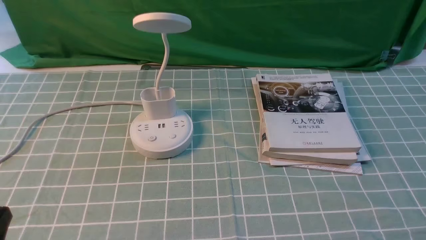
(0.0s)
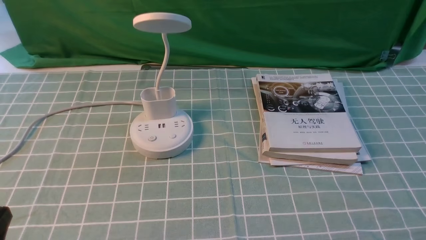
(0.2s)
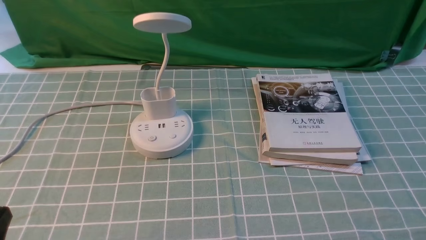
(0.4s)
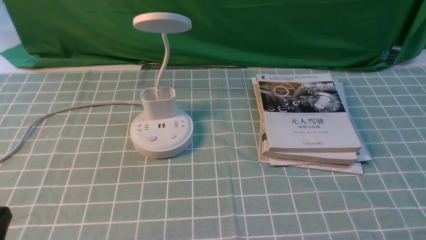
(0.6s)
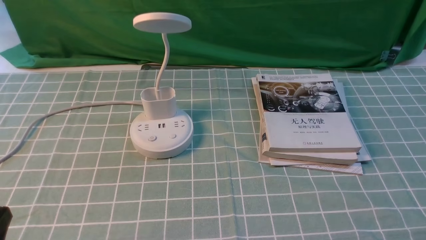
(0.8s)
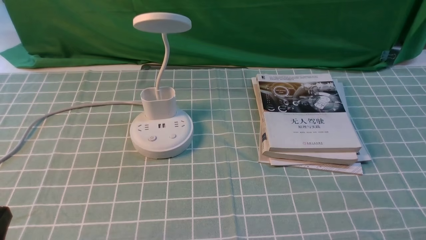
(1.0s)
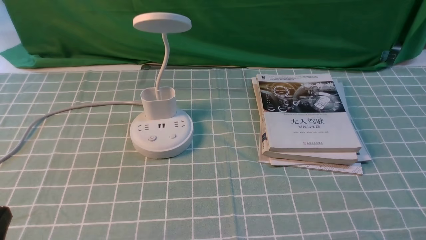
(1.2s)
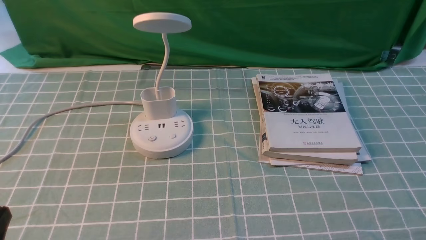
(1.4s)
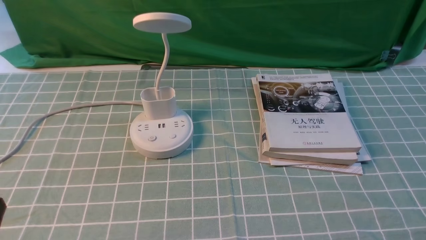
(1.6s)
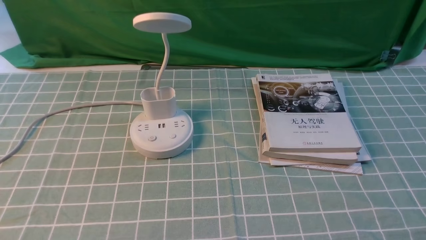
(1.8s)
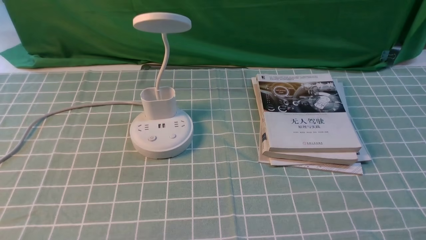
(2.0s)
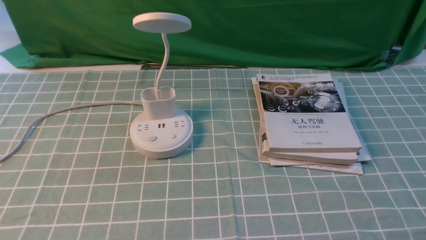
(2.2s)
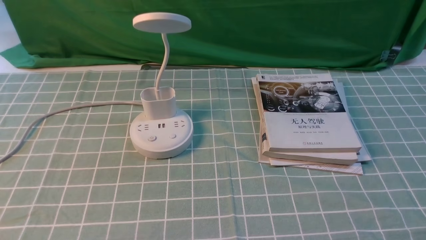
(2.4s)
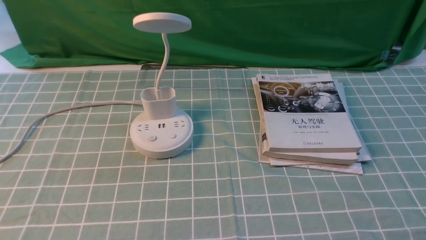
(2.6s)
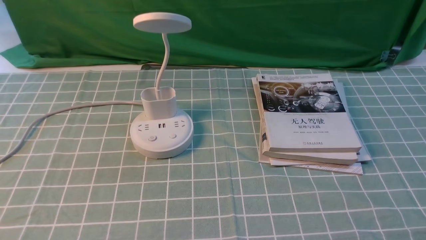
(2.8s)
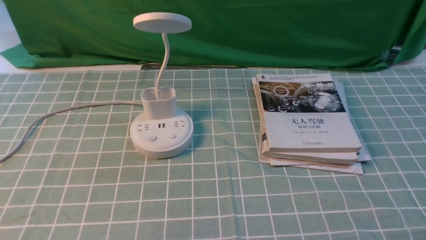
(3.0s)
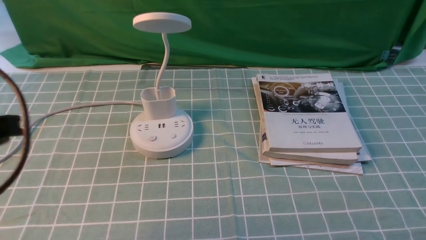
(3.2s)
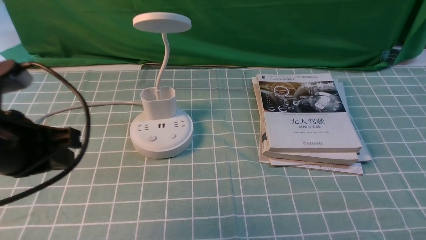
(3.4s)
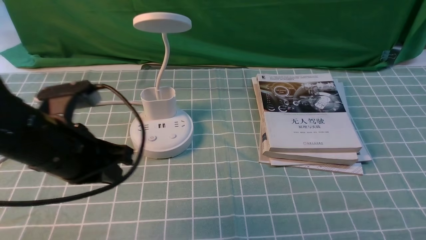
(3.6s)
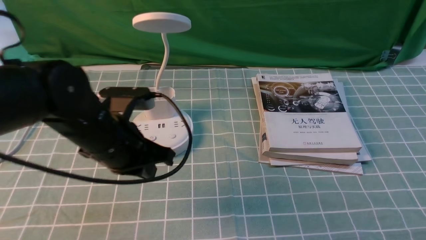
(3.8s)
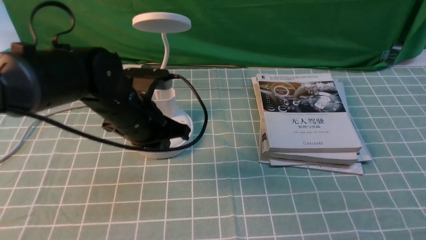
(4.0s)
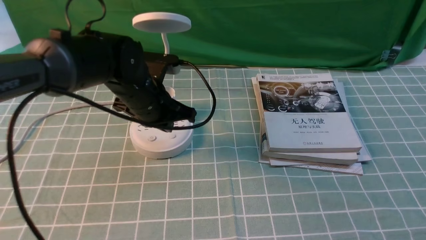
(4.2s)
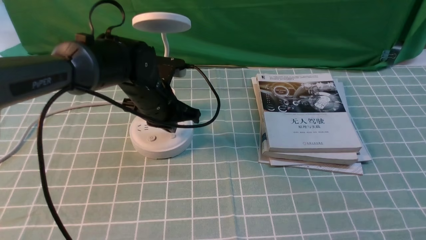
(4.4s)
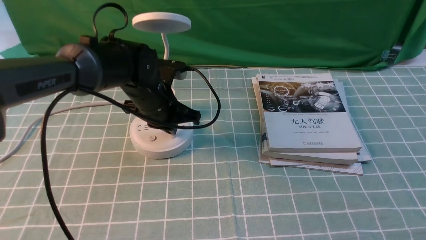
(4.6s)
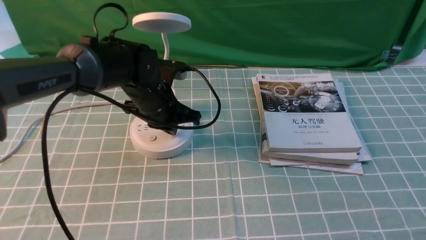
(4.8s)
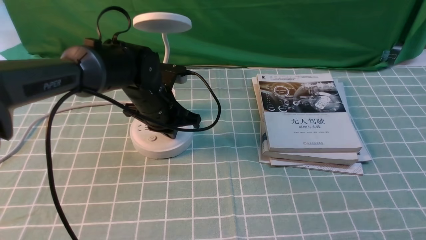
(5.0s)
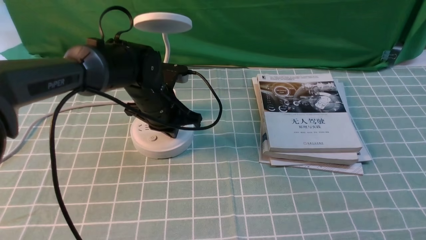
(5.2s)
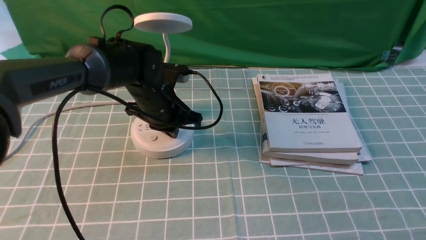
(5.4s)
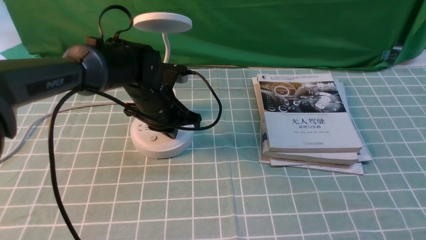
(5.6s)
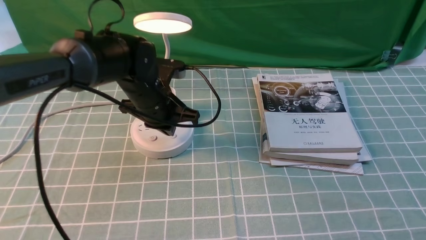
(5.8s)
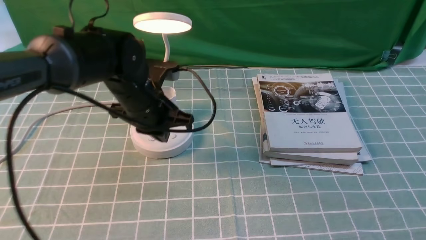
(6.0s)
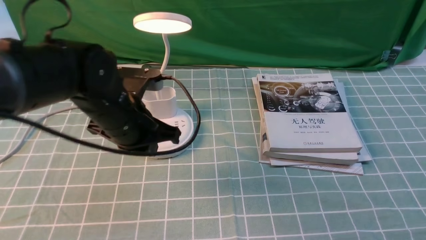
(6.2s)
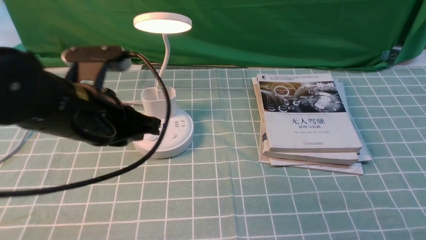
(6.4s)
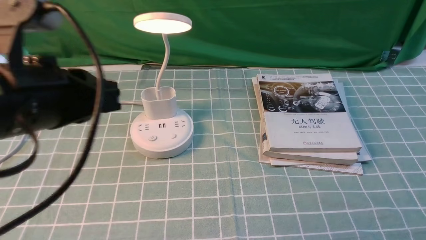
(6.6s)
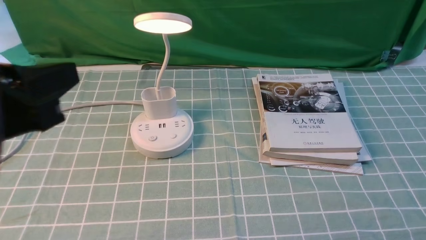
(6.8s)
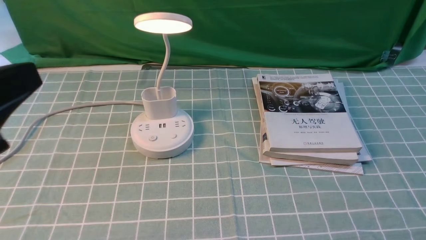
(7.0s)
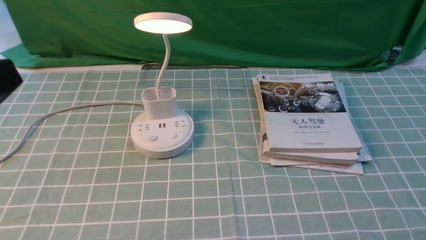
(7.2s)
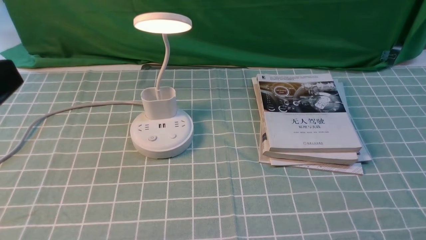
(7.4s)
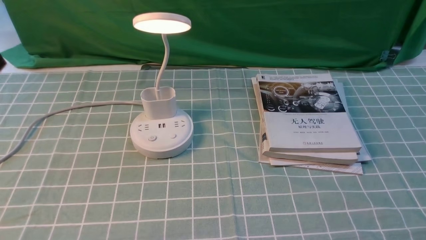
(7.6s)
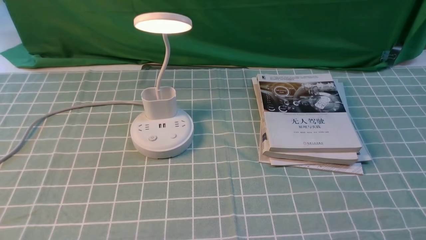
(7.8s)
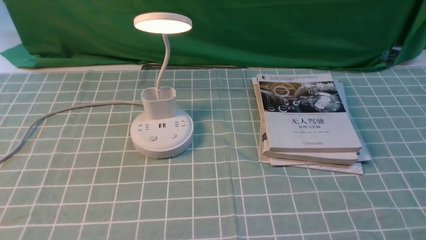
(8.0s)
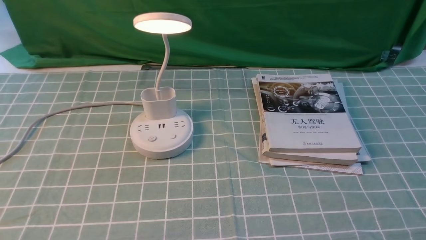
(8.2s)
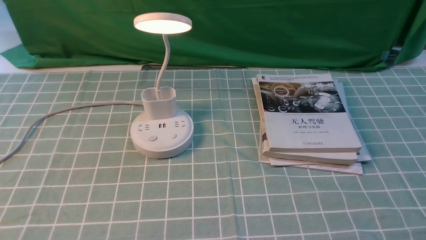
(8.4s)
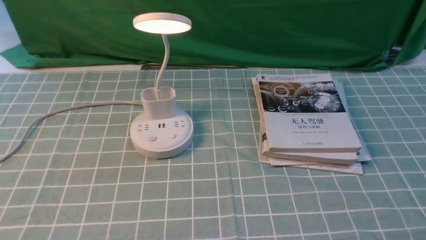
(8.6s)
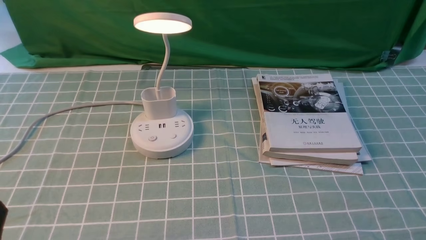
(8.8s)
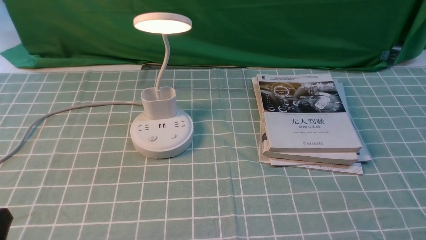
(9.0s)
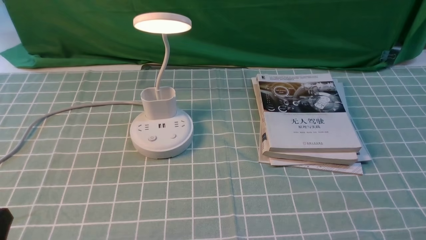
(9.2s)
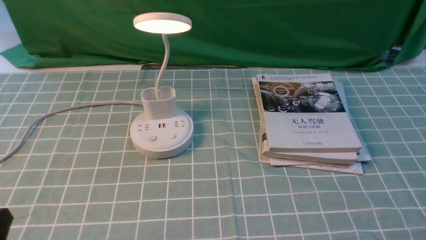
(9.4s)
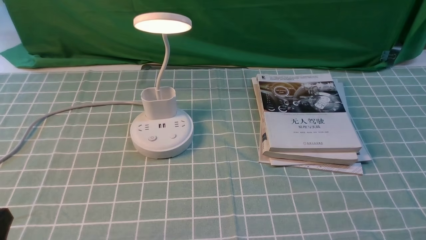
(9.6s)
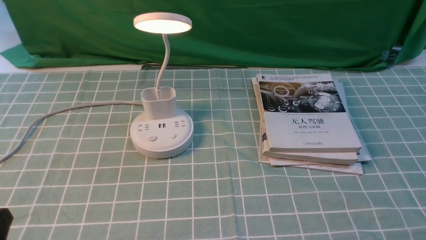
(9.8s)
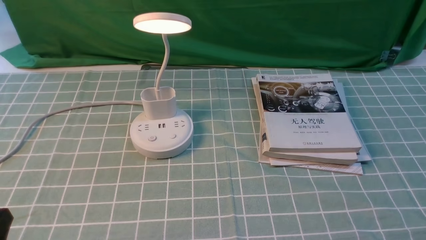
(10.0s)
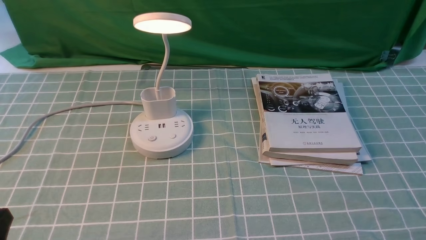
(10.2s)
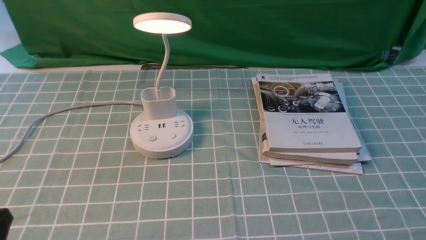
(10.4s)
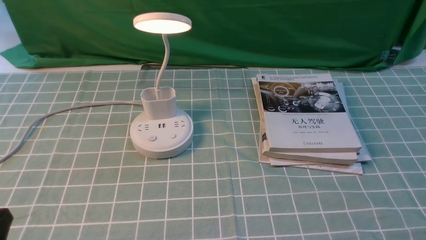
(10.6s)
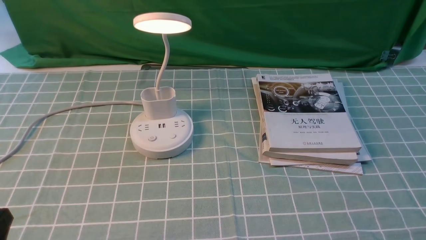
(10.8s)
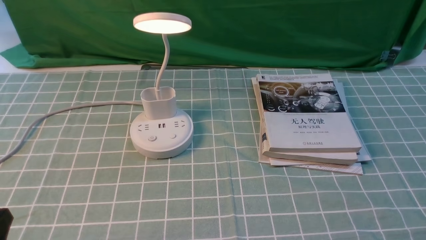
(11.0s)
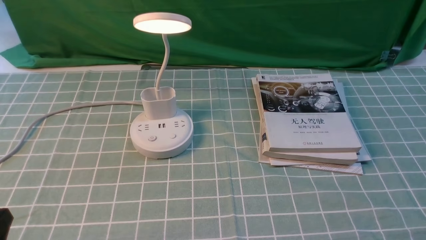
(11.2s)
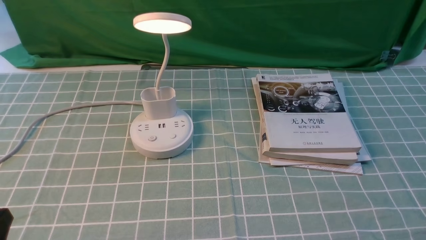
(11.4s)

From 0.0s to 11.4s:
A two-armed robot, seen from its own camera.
Step, from 0.0s to 5.8s: use the left arm to press the button switch on the lamp holder.
From 0.0s to 1.4s: Both grippers stay put.
From 2.8s to 4.2s: The left gripper shifts some 40 cm forward, to the right and downward, and closes up.
From 4.2s to 5.6s: The grippers make only small movements.
From 5.6s to 7.2s: The left gripper is displaced backward, upward and to the left by about 40 cm.
From 7.2s to 8.6s: The left gripper travels downward by approximately 15 cm.
From 10.0s to 11.4s: Neither gripper changes place.

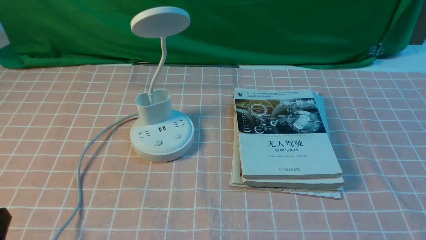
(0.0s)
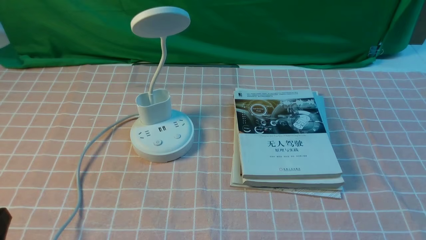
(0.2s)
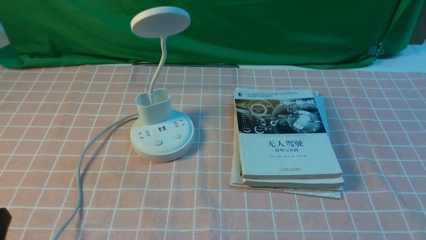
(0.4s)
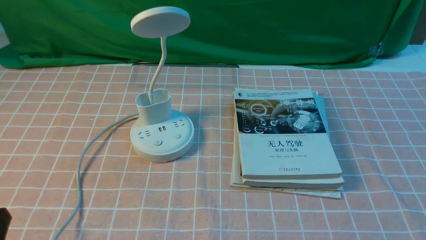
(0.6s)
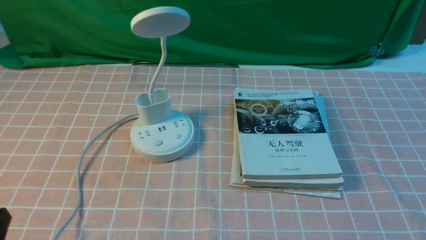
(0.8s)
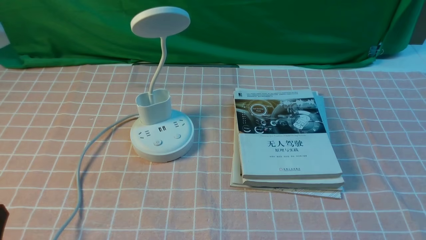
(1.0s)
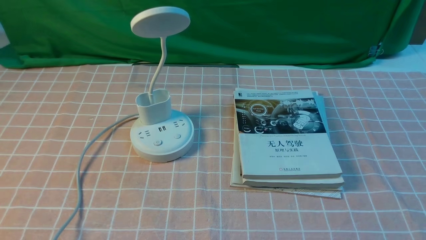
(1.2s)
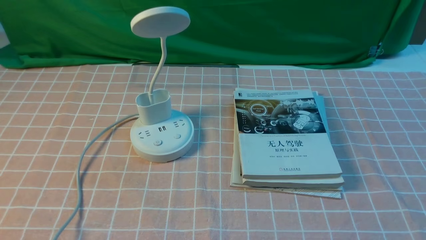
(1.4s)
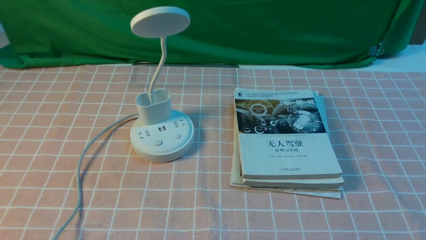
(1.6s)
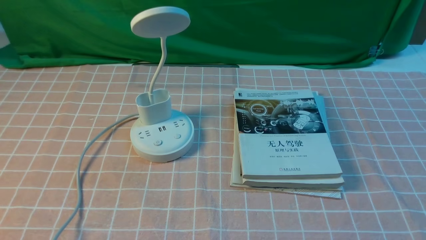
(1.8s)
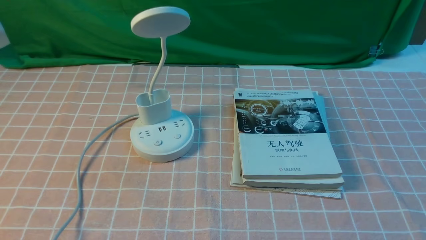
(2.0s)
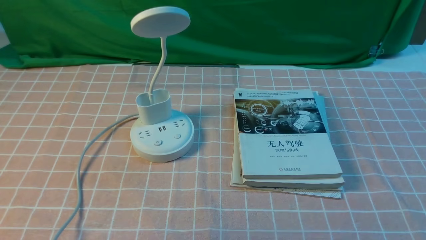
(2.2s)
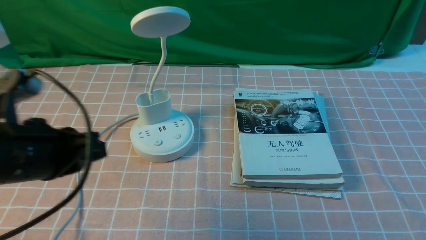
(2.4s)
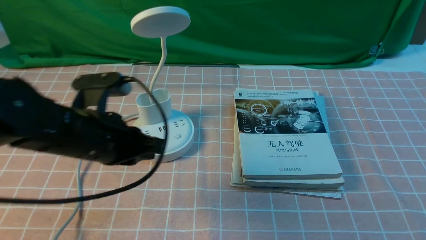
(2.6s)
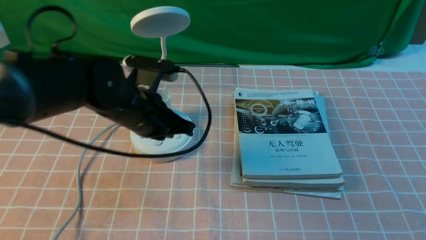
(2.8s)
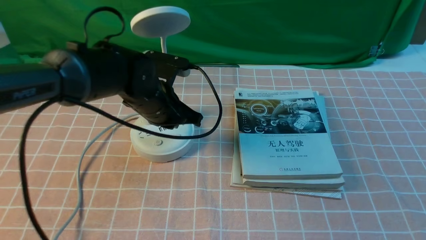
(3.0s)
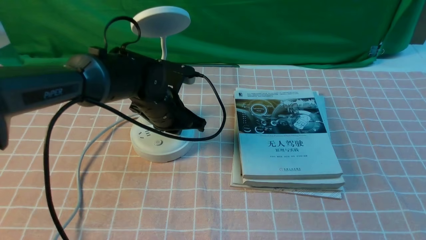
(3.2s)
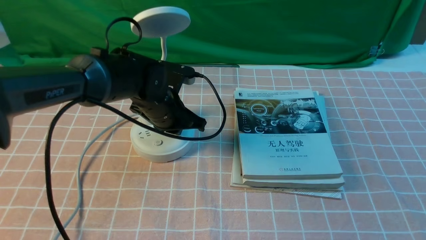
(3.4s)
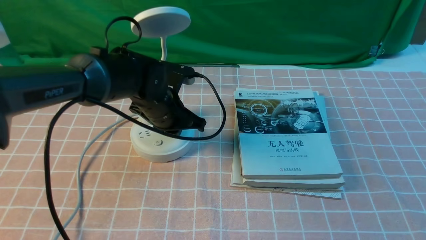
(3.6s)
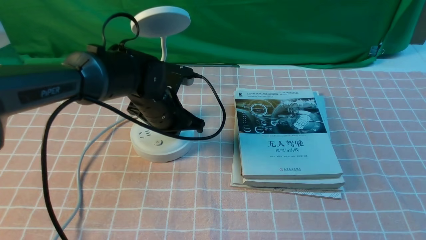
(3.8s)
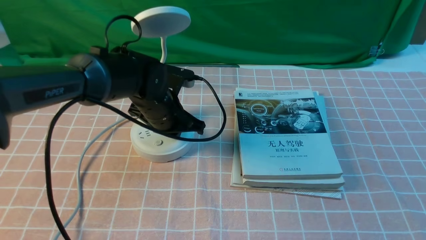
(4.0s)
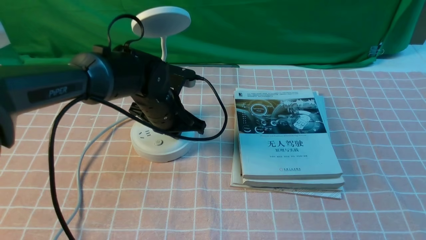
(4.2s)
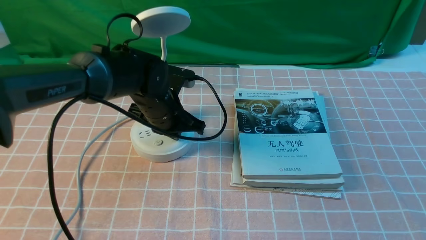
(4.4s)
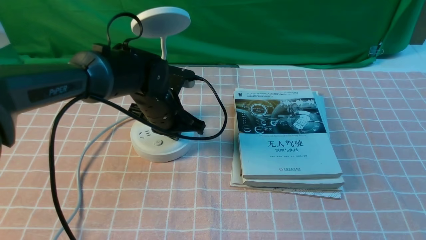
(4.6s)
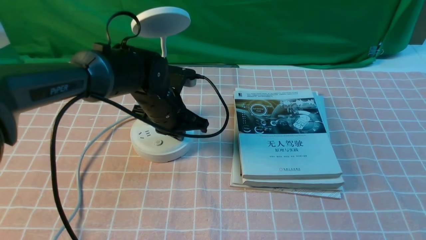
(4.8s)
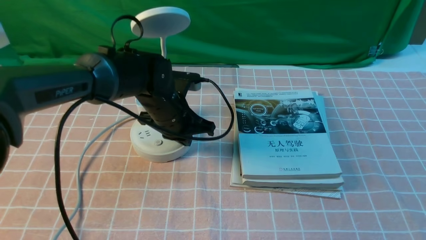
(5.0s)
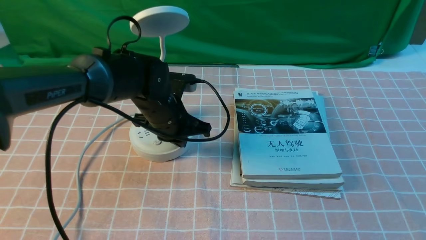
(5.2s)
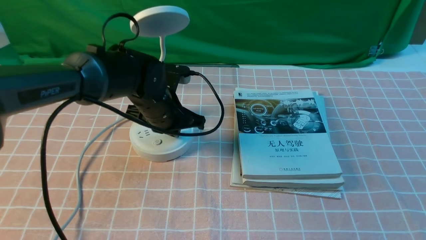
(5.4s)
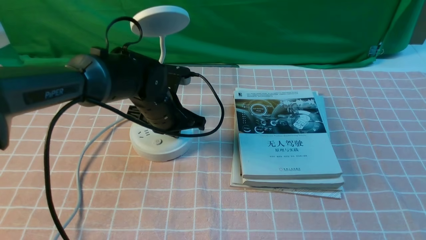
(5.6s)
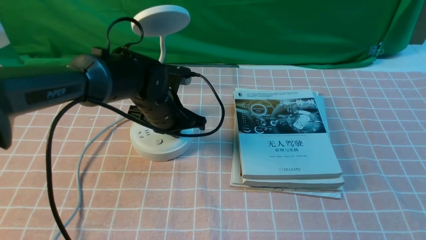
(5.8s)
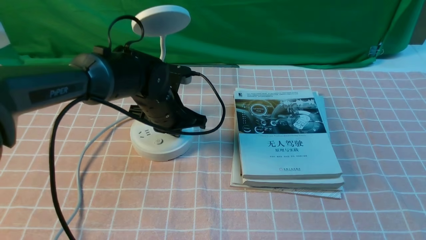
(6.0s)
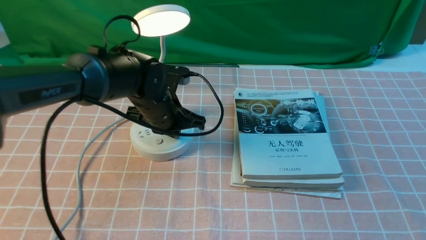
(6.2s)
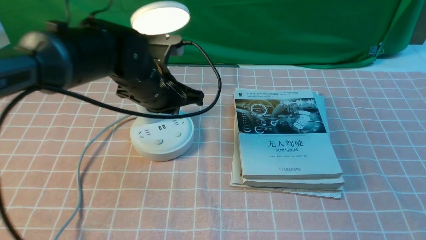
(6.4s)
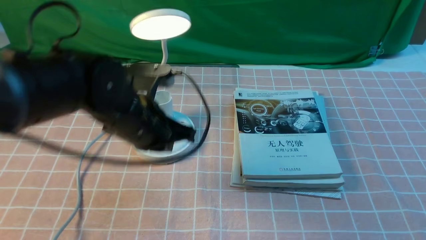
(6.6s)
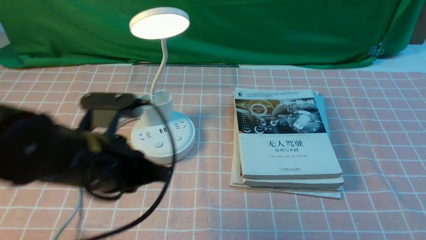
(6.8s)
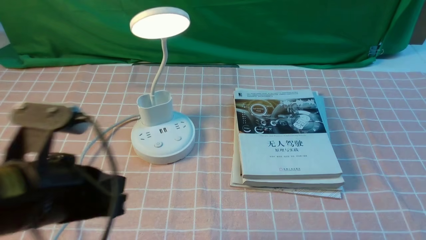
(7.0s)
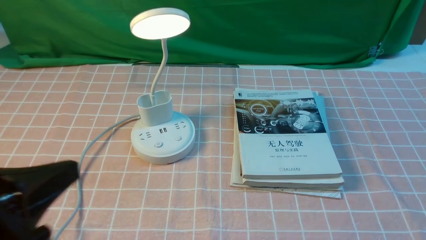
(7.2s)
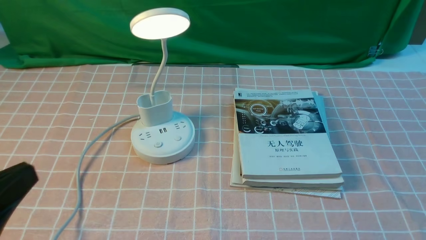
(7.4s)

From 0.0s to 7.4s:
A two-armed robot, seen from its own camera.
Step, from 0.0s to 6.2s: use the left arm to press the button switch on the lamp holder.
From 1.4s to 3.0s: The left gripper heads forward and to the right, covering about 35 cm.
From 3.0s to 6.0s: The grippers stay close to where they were, moving slightly.
From 6.0s to 7.4s: The left gripper moves backward and to the left, some 35 cm.
